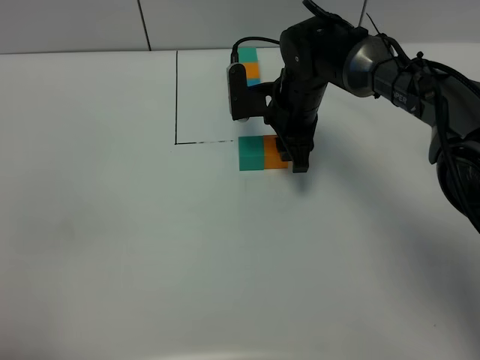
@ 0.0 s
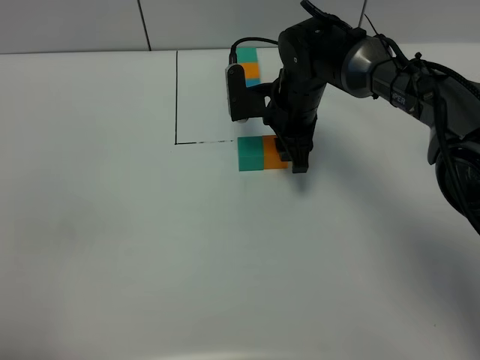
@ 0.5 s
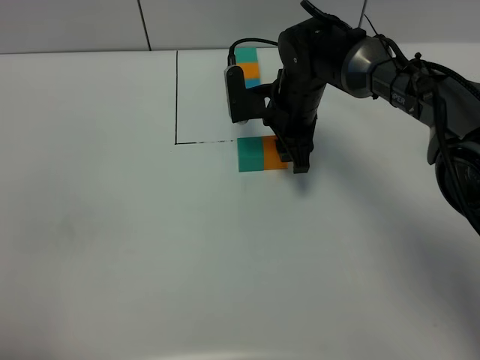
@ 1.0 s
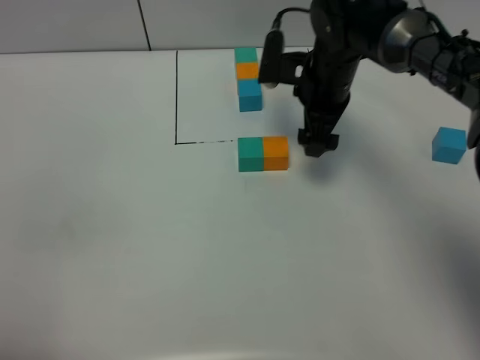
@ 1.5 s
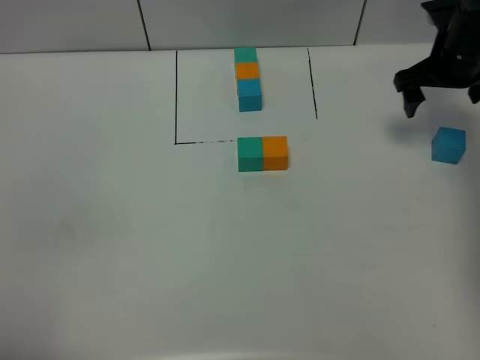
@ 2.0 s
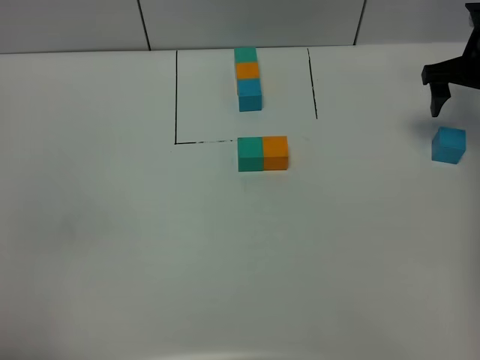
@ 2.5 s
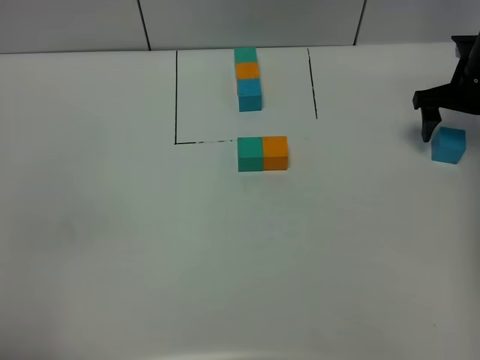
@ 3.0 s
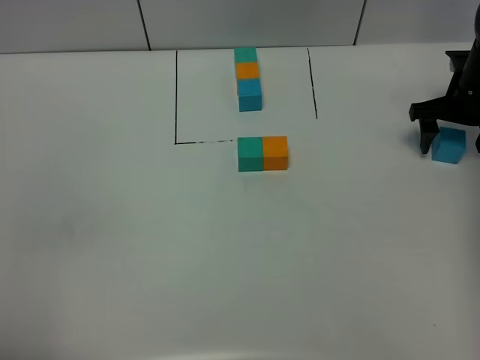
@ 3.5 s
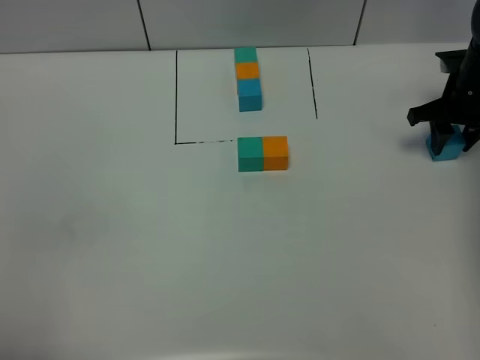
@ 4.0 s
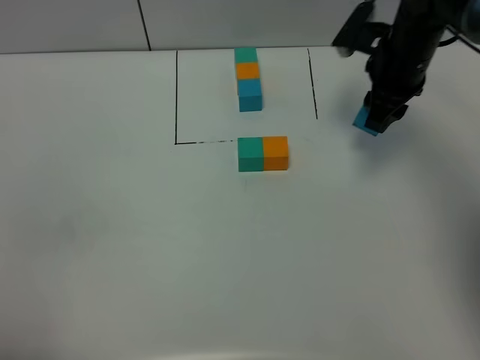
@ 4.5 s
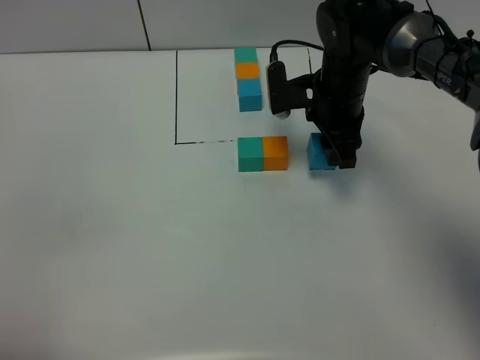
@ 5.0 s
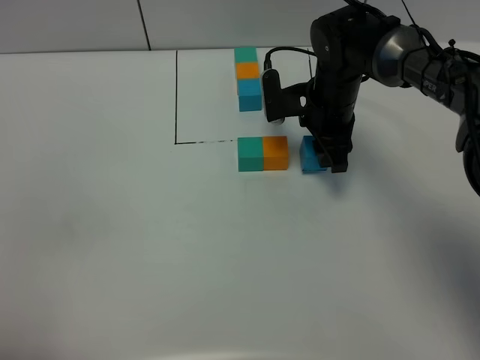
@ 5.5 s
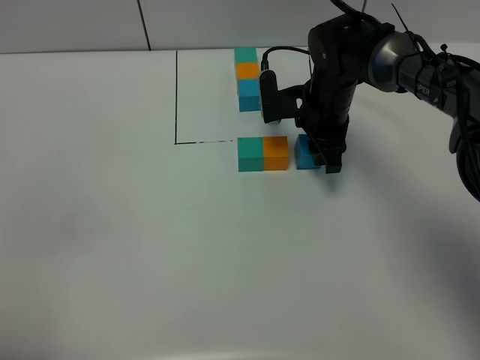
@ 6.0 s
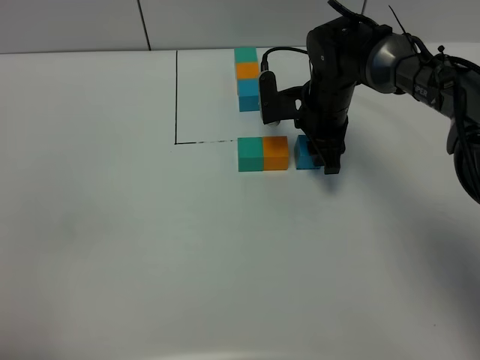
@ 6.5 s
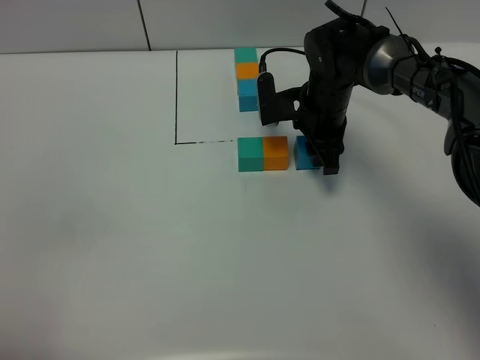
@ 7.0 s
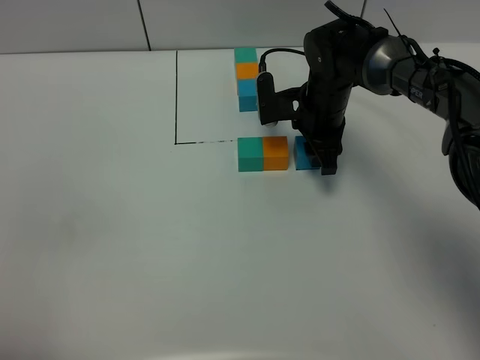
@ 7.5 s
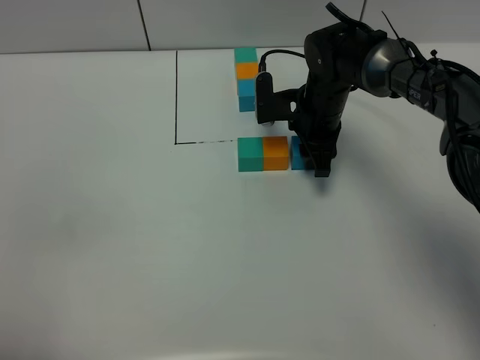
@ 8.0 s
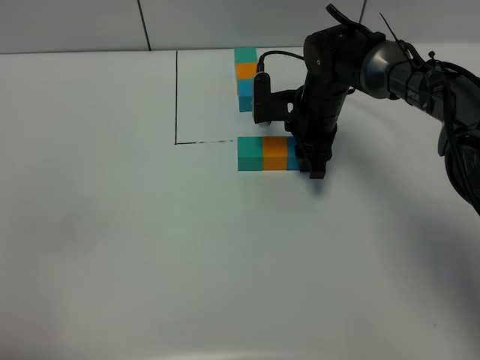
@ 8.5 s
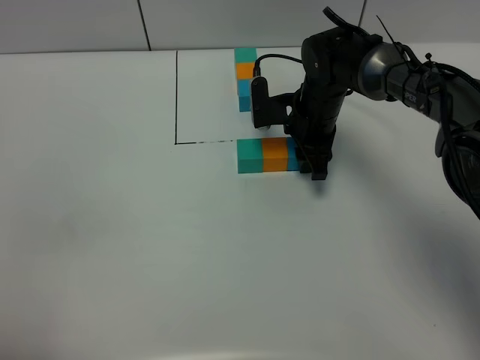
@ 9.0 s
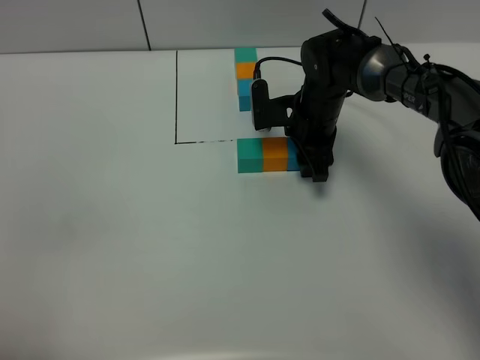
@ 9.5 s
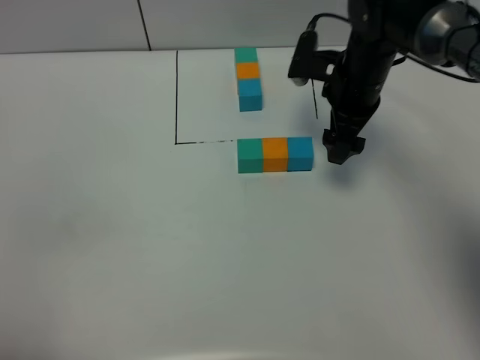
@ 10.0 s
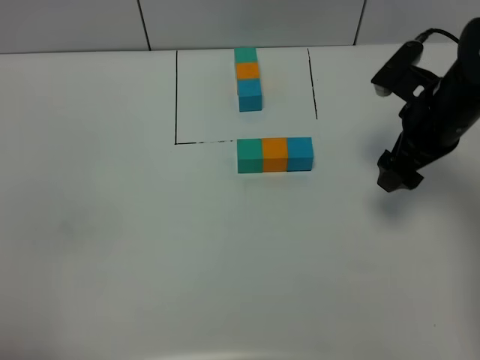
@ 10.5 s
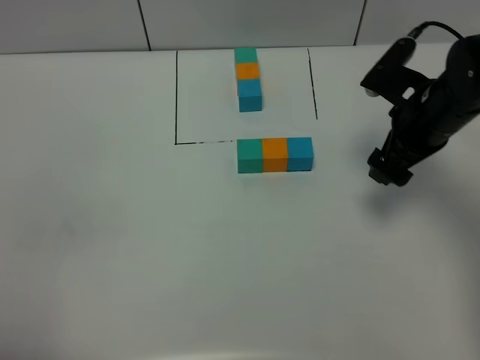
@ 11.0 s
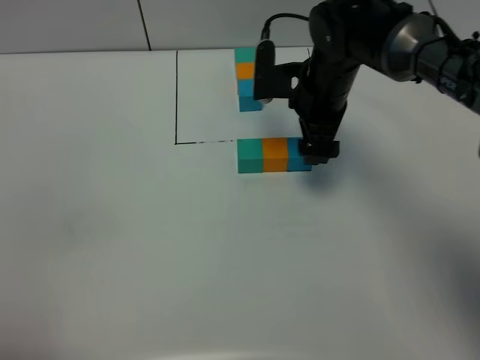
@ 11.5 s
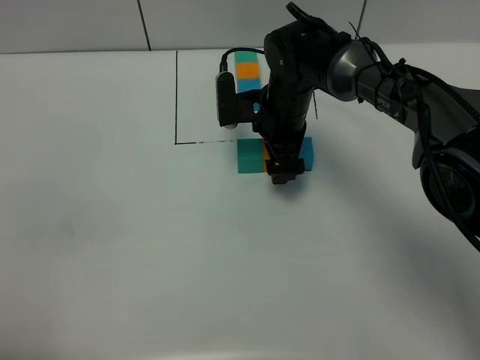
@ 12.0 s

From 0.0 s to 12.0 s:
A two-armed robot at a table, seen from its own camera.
Task of the whole recording: According to the building block template in front, assemble the scattered blocks together.
Step, from 1.5 s to 9.5 s: Put the blue build block on the right of the orange build block.
From 0.0 s to 2.0 s: The right gripper is displaced to the right by about 20 cm, and opens up.
From 2.0 s to 4.0 s: The right gripper travels downward by some 5 cm, and closes its fingers.
From 4.0 s to 6.0 s: The right gripper moves to the left, about 20 cm.
From 6.0 s to 8.0 s: The grippers stay close to where they were, moving slightly.
From 8.0 s to 10.0 s: The right gripper is displaced upward and to the right by some 10 cm, and opens.
From 10.0 s to 12.0 s: The right gripper shifts about 10 cm to the left and downward.

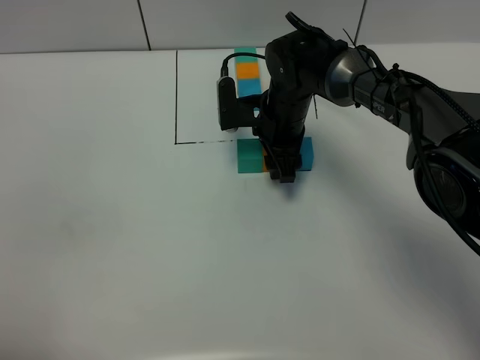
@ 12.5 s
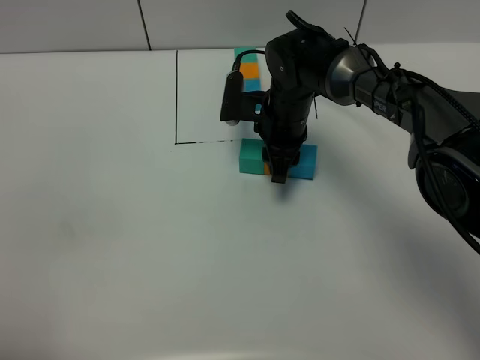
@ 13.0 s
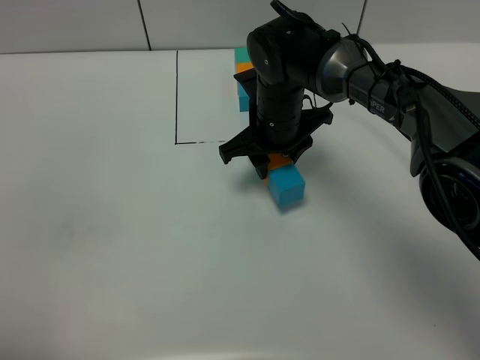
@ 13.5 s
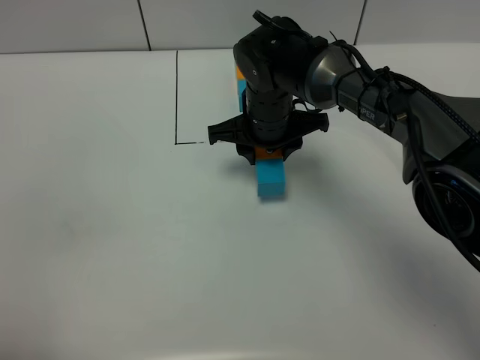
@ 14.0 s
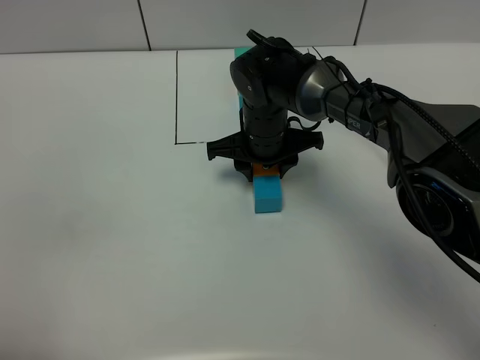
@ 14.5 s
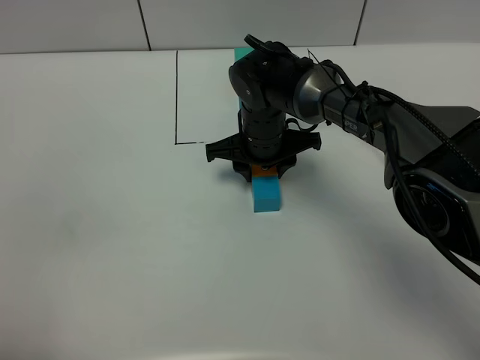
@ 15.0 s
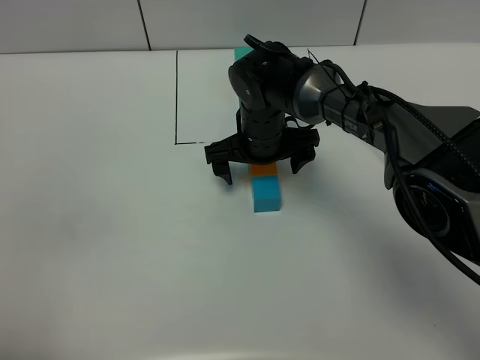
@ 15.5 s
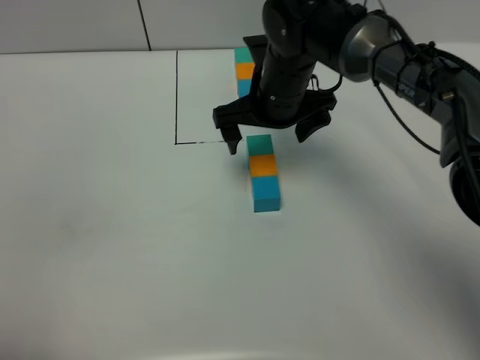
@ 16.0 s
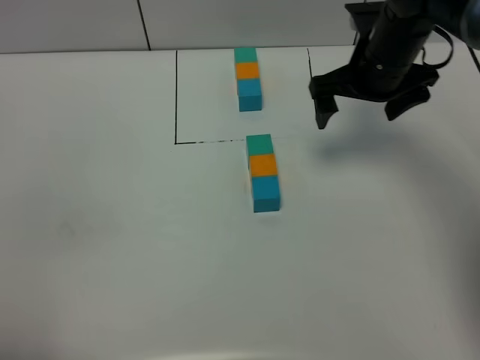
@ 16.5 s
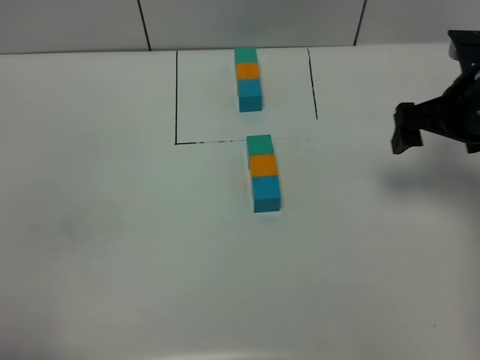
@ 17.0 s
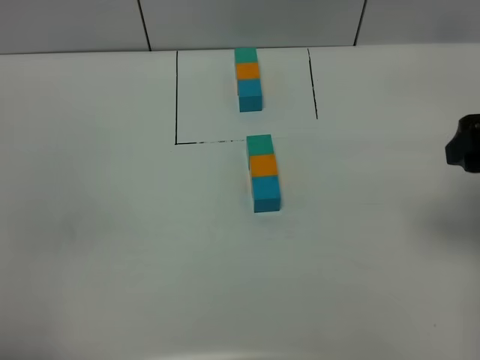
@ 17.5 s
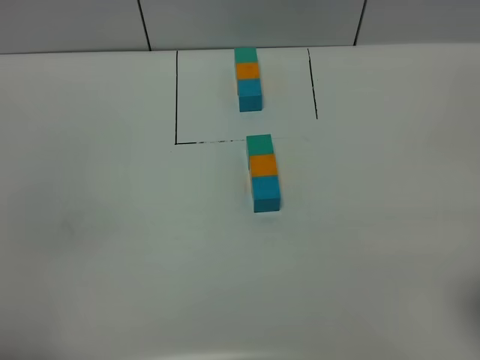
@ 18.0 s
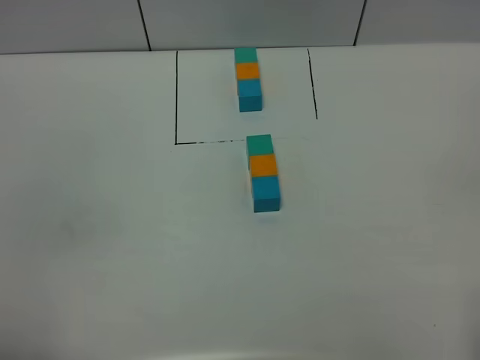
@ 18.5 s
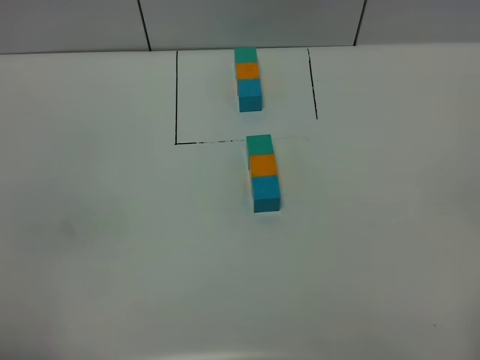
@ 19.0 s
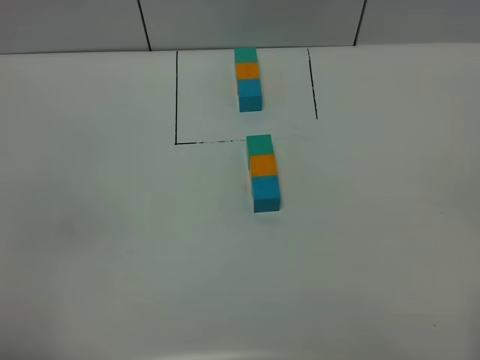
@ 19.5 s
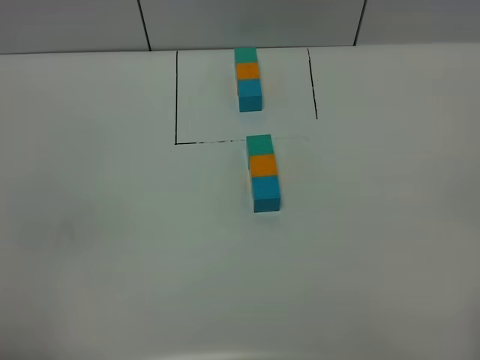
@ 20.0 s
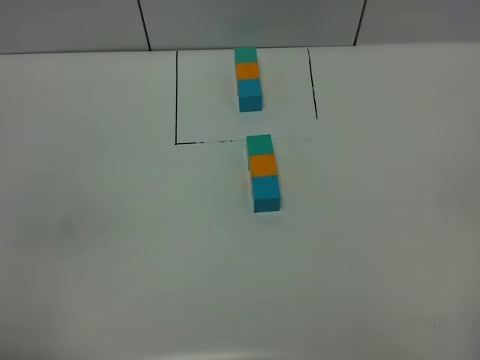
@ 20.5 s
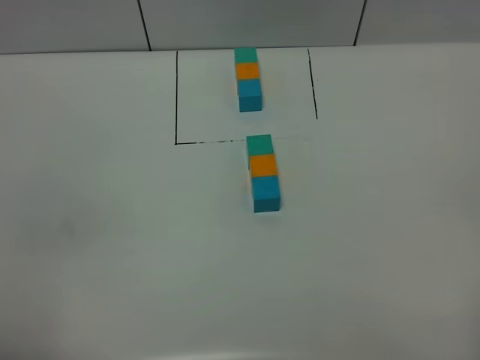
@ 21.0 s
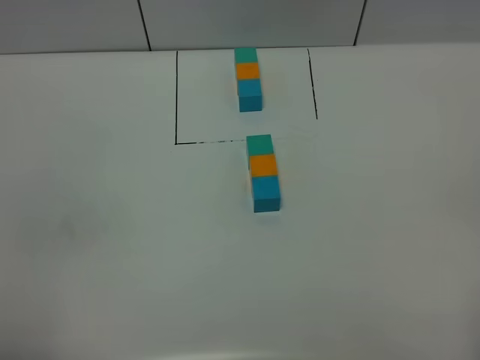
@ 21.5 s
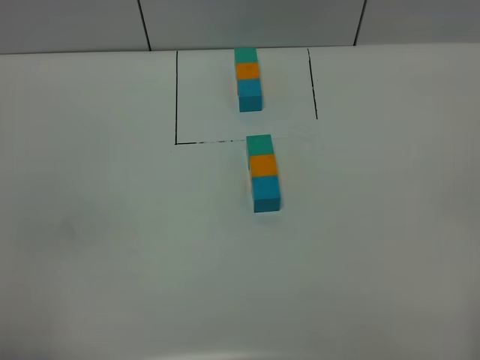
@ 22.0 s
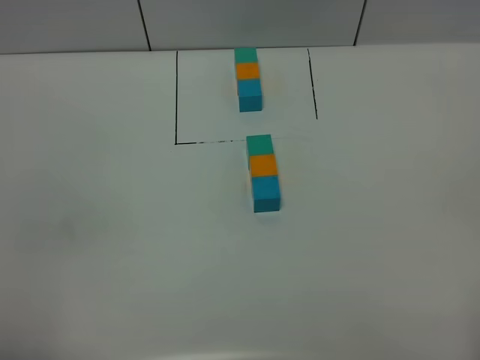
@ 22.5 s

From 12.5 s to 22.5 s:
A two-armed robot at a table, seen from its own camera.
Task of the whole recording: According to the building block template in front, assemble the scattered blocks together.
Step, from 12.5 s to 15.5 s: move the build block to the center of the table.
From 14.5 s to 16.5 s: The right gripper shifts approximately 20 cm to the right and upward, and opens.
From 16.5 s to 18.5 s: The right gripper heads backward, covering approximately 40 cm.
From 20.5 s to 22.5 s: Neither gripper changes place.
